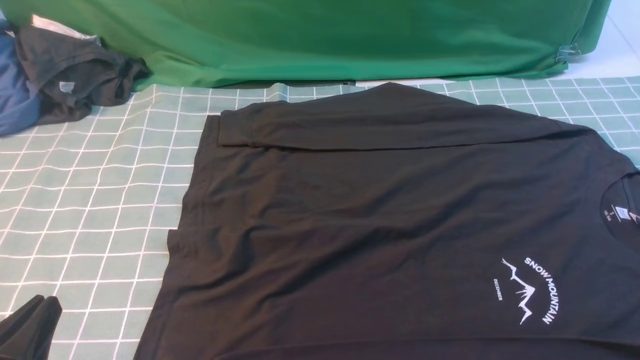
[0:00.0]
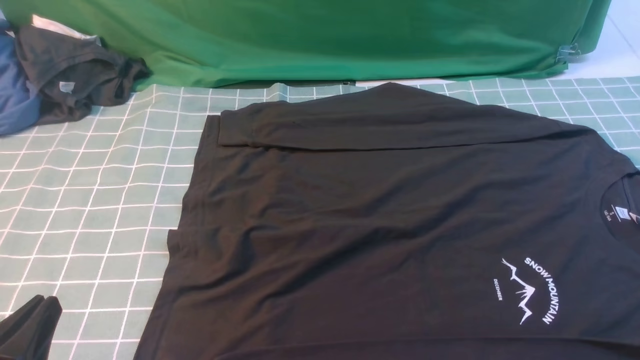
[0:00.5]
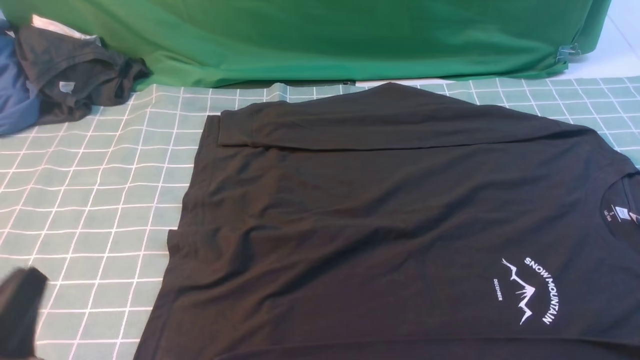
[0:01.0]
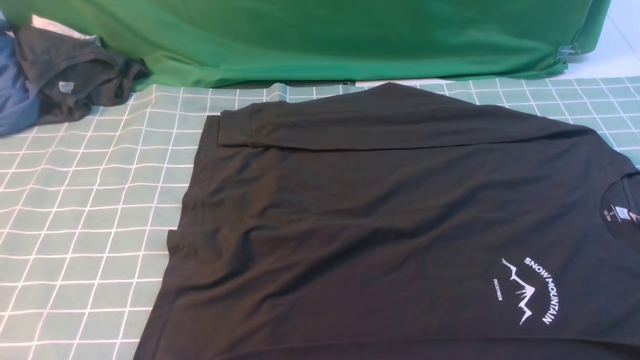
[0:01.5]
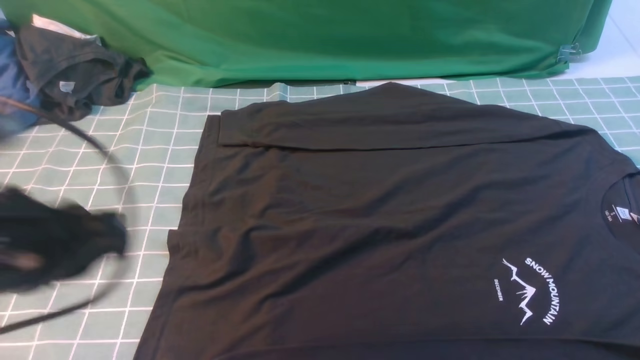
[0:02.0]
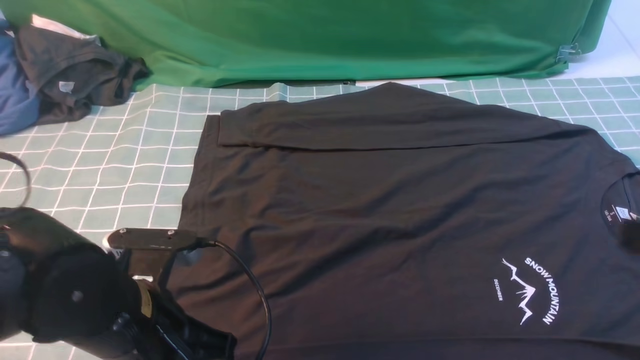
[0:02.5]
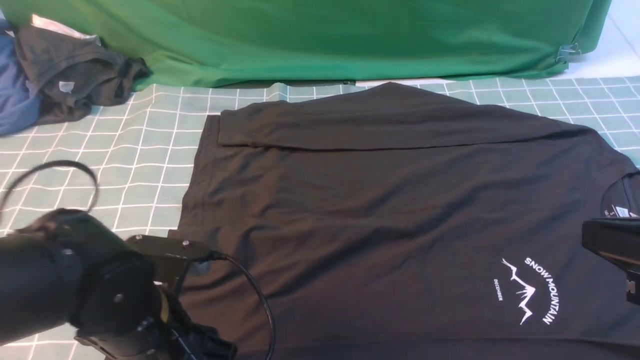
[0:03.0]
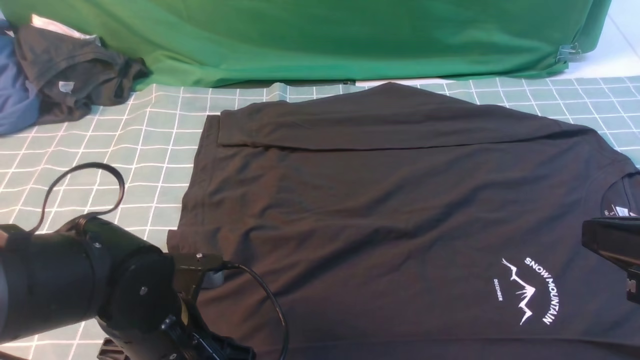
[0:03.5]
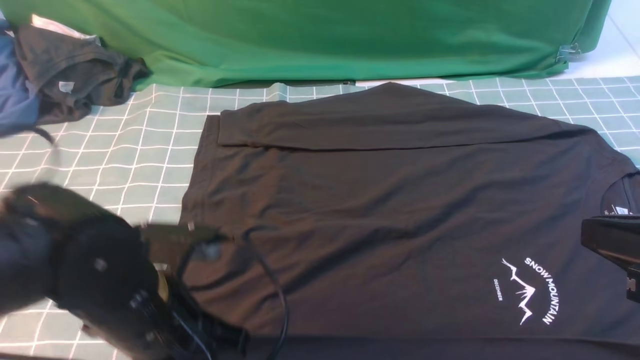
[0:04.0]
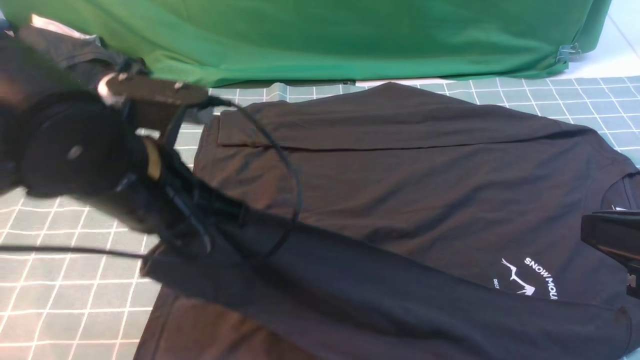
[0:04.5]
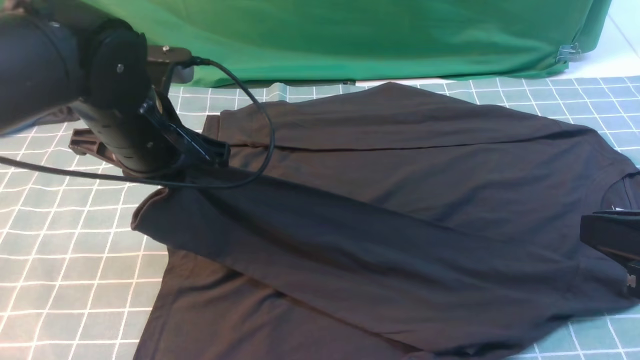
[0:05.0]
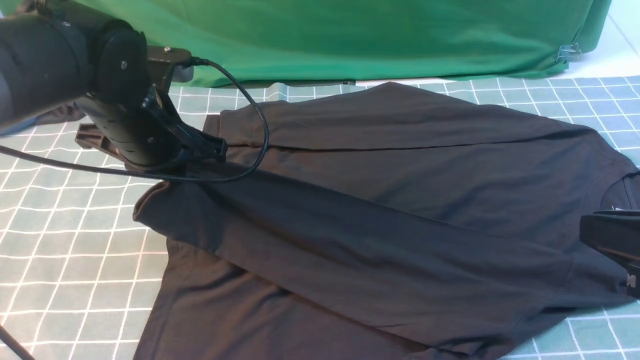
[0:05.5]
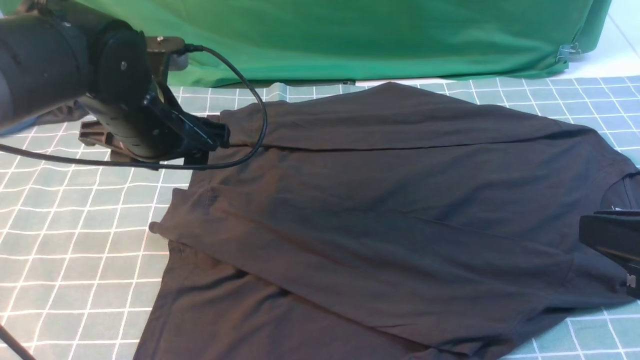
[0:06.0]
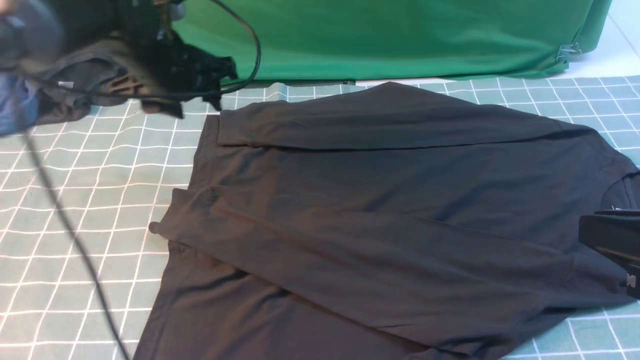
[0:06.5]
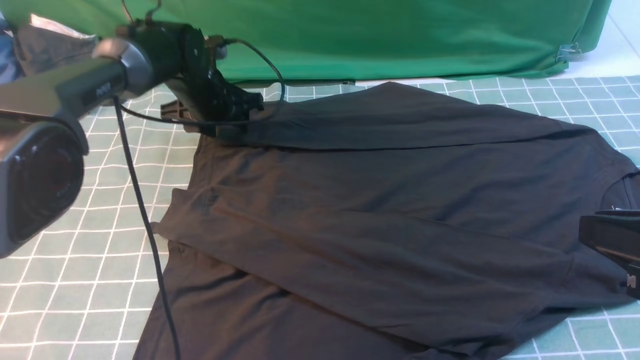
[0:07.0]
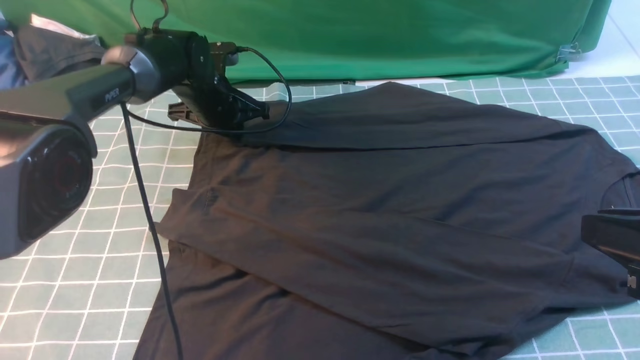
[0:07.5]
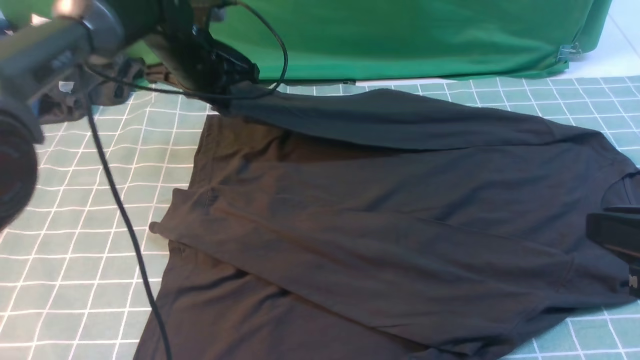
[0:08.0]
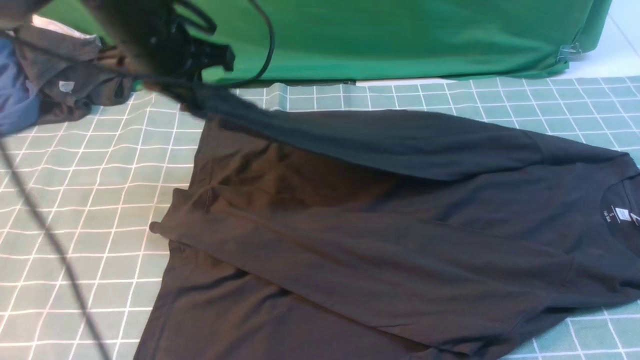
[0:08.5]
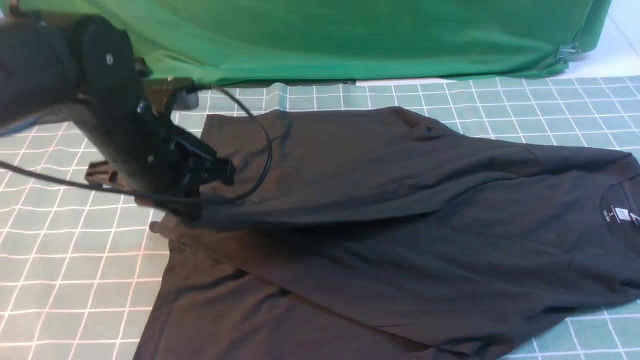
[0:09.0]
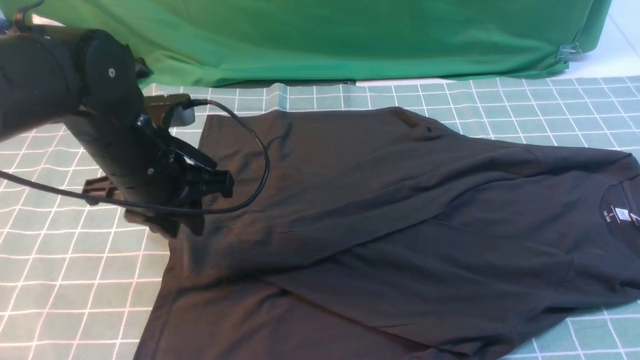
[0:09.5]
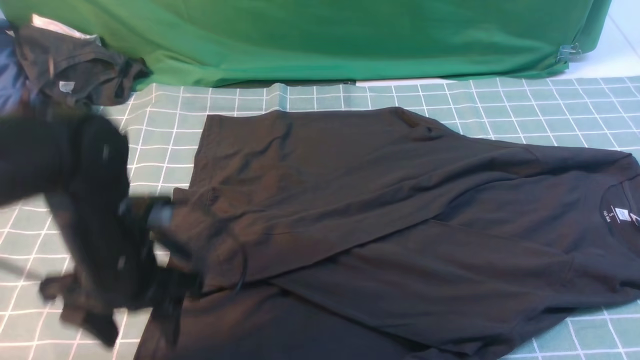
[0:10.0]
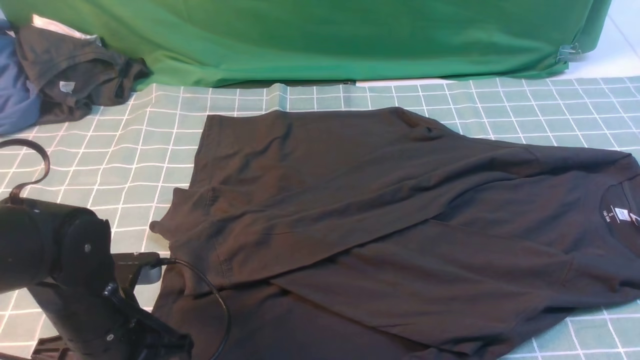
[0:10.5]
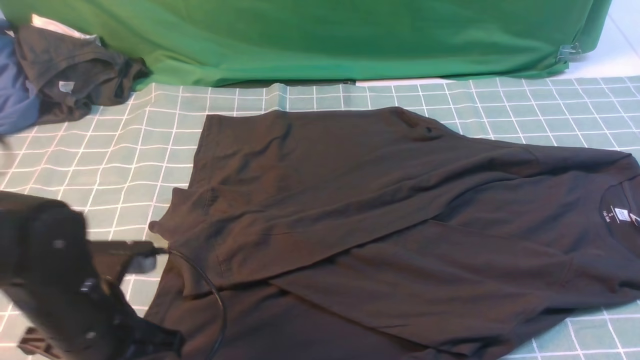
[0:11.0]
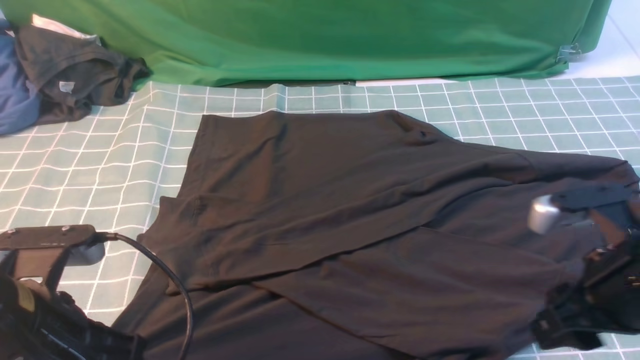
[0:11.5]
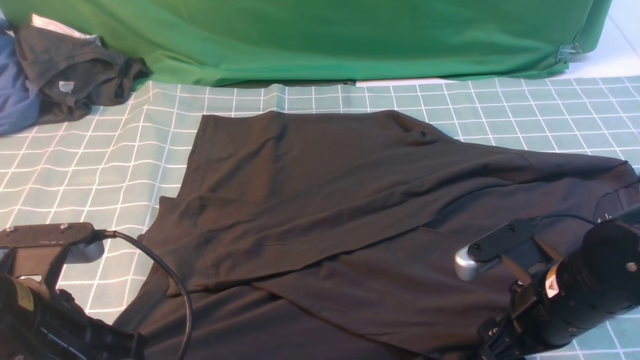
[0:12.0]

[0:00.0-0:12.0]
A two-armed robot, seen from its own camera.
Step, 0:00.0 to 0:03.5: use the left arm to clamp the cuff closest to it.
Step, 0:04.0 to 0:05.5: use the left arm to drag and place the cuff at the centered position on the left edge of the fabric.
Step, 0:06.0 to 0:07.5: use the left arm to clamp the cuff farthest from it.
Step, 0:08.0 to 0:09.5: use the left arm to drag and drop the cuff onto the cuff closest to the left arm.
0:00.0 to 0:02.0: The left gripper goes roughly 15 cm forward and upward.
0:02.0 to 0:04.0: The left gripper heads to the right and downward, covering approximately 10 cm, and opens and closes again, while the right gripper shifts some 10 cm to the left, forward and upward.
0:04.0 to 0:06.0: The left gripper shifts approximately 15 cm forward, and opens its fingers.
0:06.0 to 0:08.0: The left gripper travels forward by about 15 cm, and closes its fingers.
0:08.0 to 0:10.0: The left gripper goes about 25 cm backward, and opens up.
0:10.0 to 0:12.0: The right gripper heads downward, to the left and forward, covering approximately 20 cm, and opens its fingers. Meanwhile the left gripper heads backward, covering approximately 10 cm, and closes its fingers.

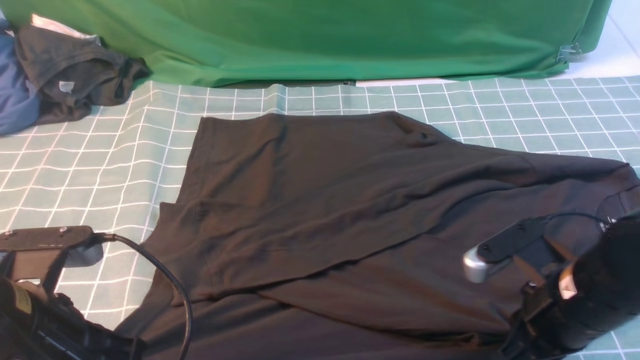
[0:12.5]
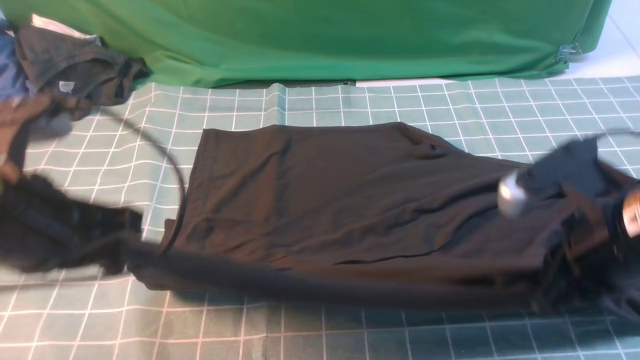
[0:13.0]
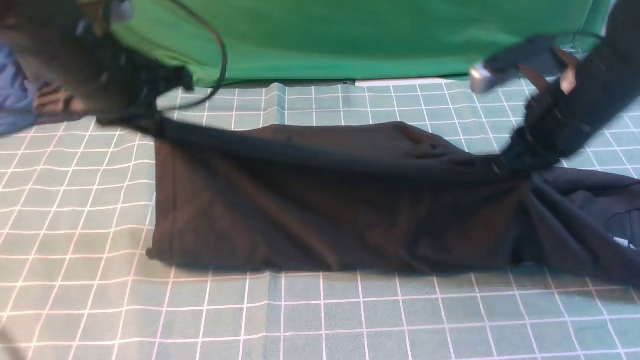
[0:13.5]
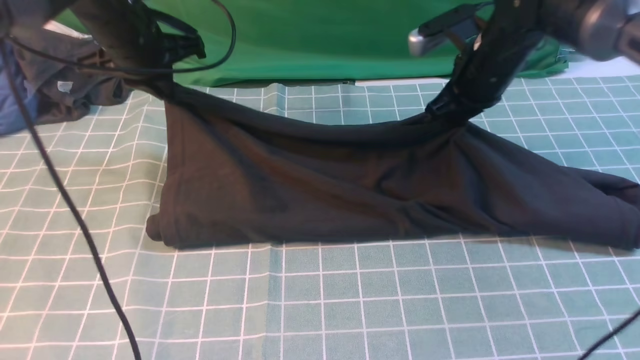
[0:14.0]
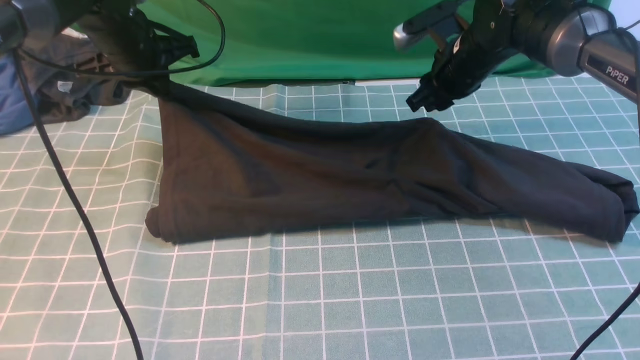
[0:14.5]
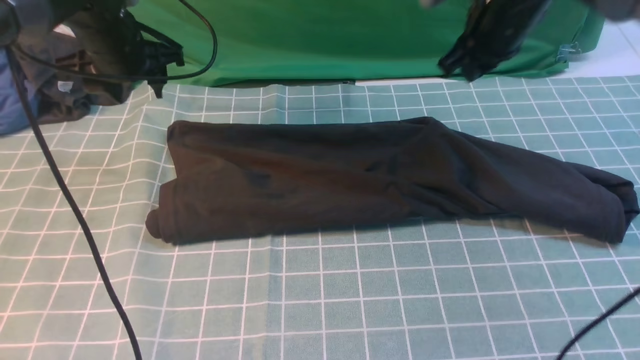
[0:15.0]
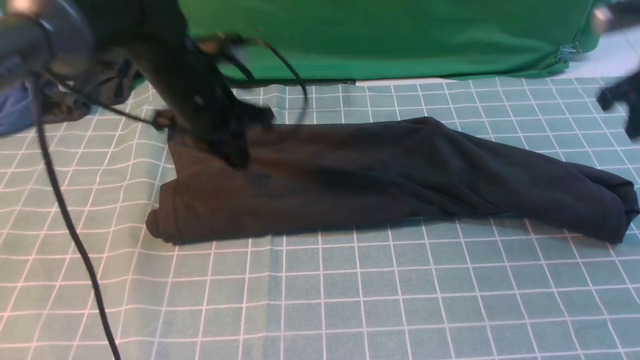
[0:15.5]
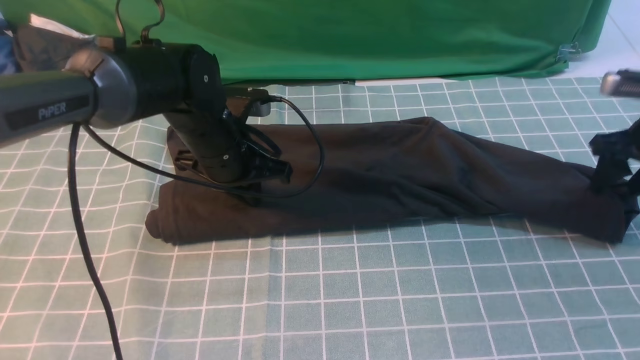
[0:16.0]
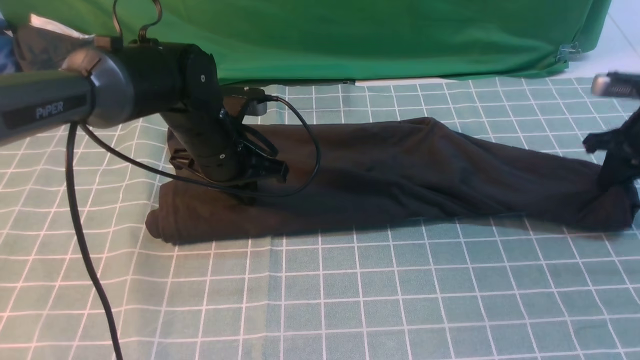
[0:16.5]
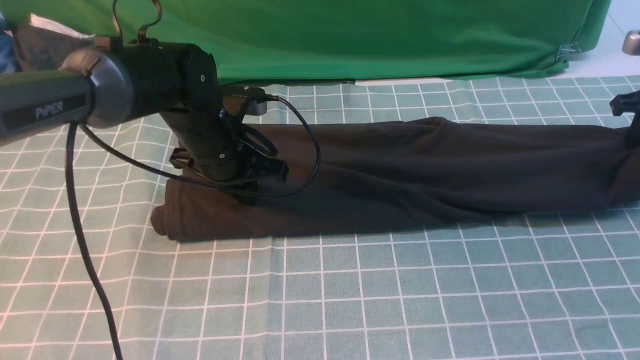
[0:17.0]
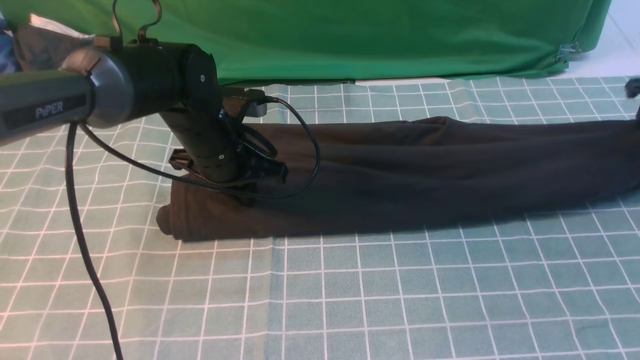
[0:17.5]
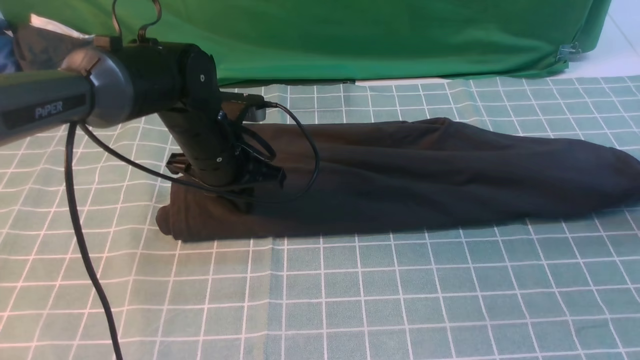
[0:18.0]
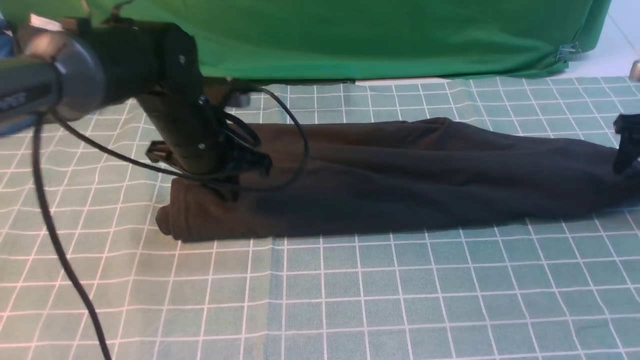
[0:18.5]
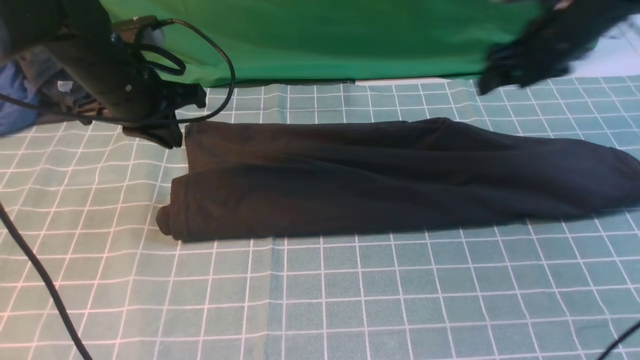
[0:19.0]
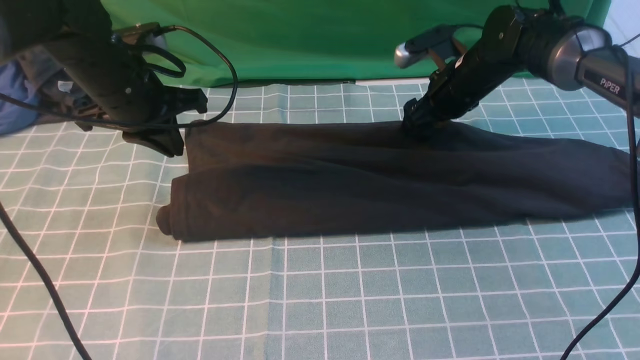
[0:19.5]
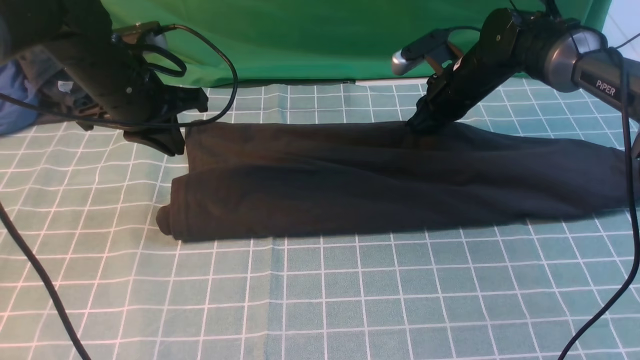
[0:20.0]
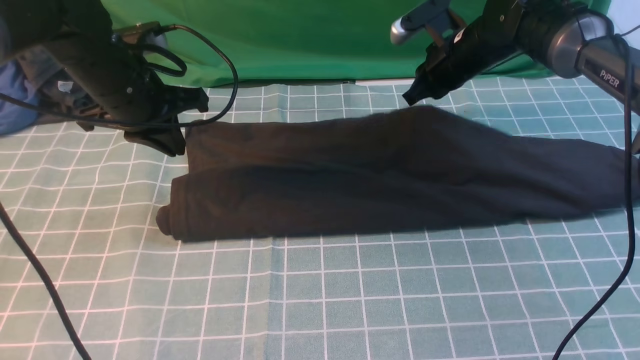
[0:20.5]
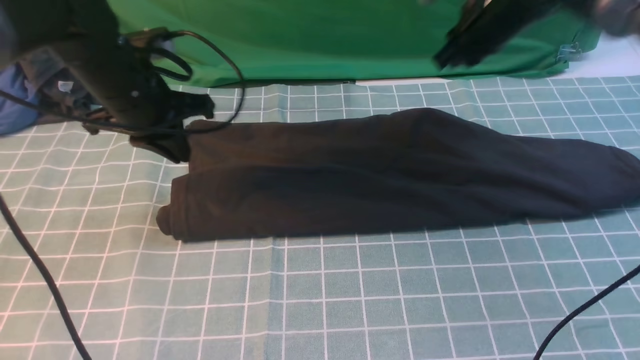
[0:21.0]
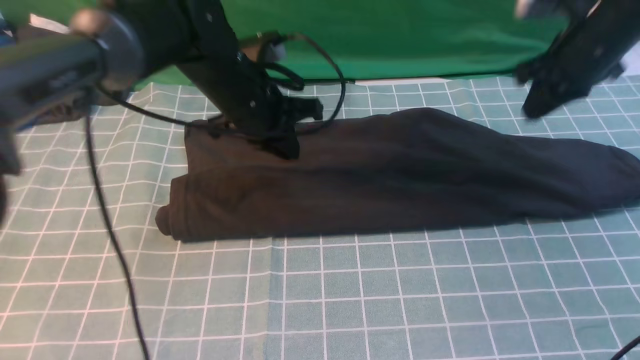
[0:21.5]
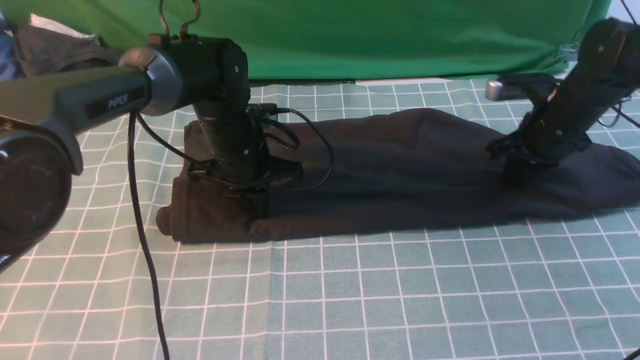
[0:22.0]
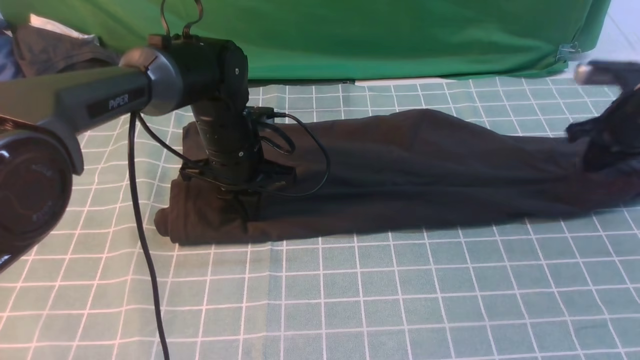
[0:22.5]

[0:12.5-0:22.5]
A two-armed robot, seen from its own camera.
Step, 0:12.5 to 0:14.5: use both arms to drag the lower edge of the fabric forward and fold it over the upper edge.
0:12.5 to 0:14.5: Both grippers move forward, about 30 cm.
0:14.5 to 0:16.5: The left gripper moves to the right, backward and downward, about 15 cm, and opens, then closes once more; the right gripper travels to the right by about 20 cm.
0:16.5 to 0:18.5: The right gripper opens up.
0:18.5 to 0:20.5: The right gripper moves to the left, approximately 25 cm, and closes. The left gripper heads to the left, covering about 5 cm.
0:20.5 to 0:22.5: The right gripper is displaced to the right and backward by about 20 cm, while the left gripper moves to the right and downward, about 15 cm.
